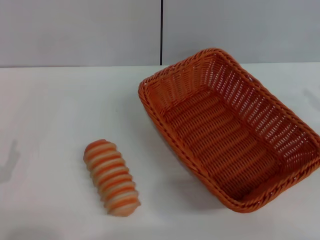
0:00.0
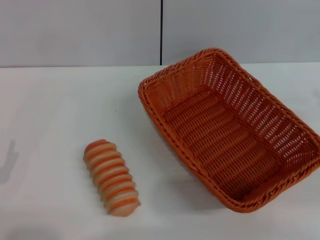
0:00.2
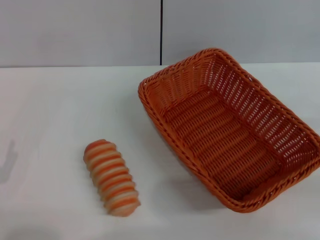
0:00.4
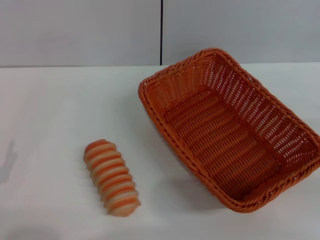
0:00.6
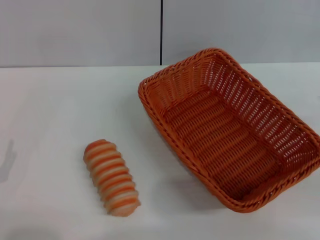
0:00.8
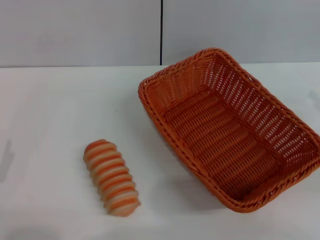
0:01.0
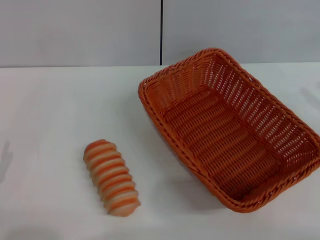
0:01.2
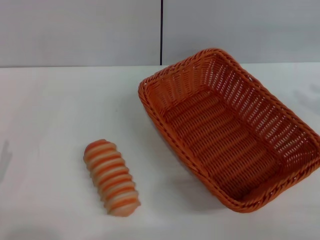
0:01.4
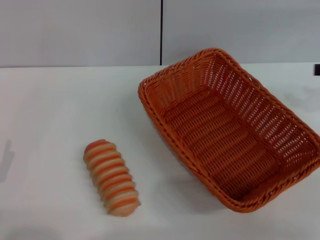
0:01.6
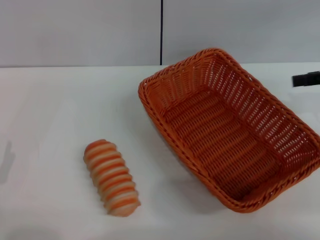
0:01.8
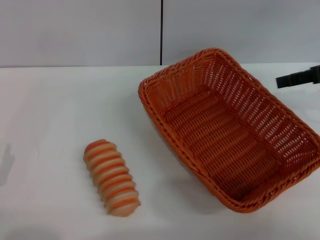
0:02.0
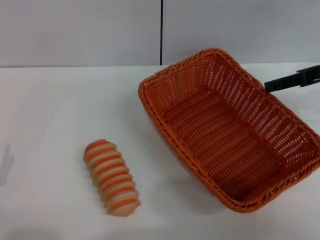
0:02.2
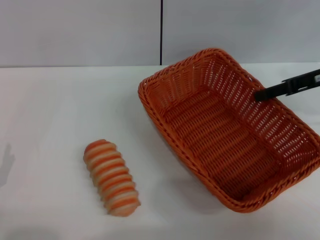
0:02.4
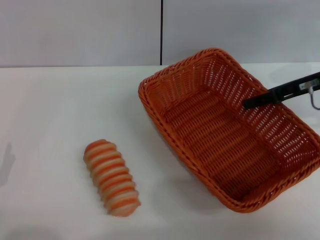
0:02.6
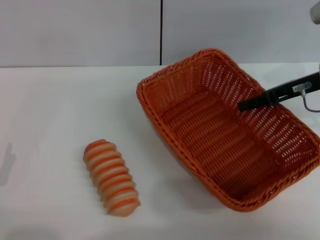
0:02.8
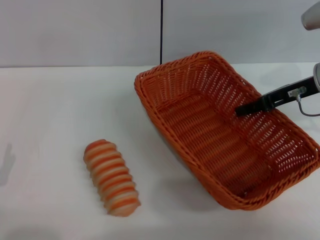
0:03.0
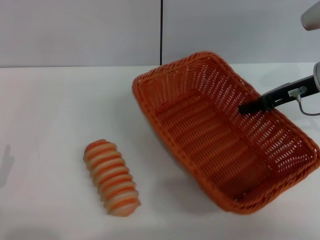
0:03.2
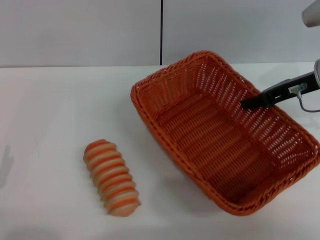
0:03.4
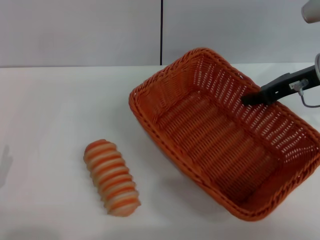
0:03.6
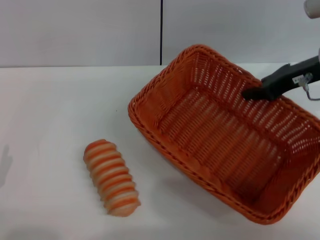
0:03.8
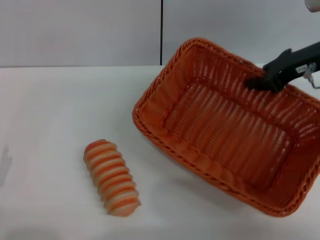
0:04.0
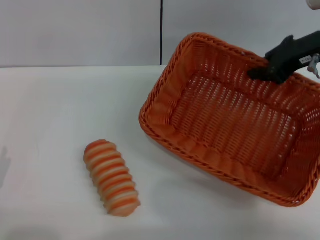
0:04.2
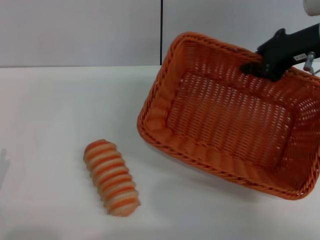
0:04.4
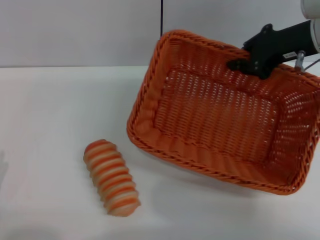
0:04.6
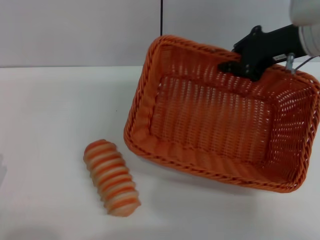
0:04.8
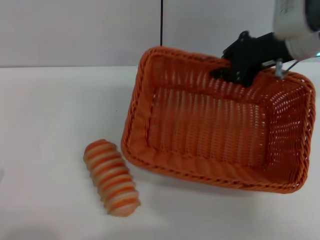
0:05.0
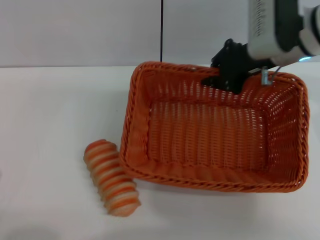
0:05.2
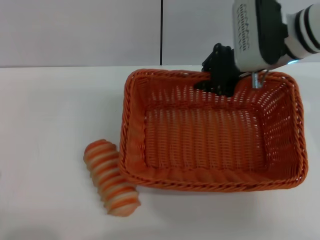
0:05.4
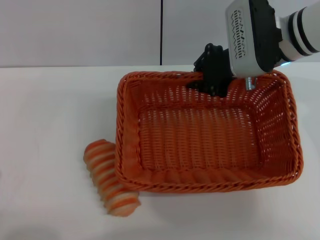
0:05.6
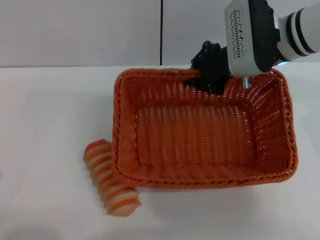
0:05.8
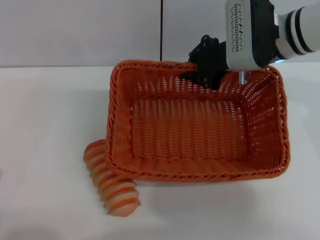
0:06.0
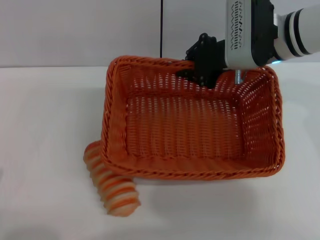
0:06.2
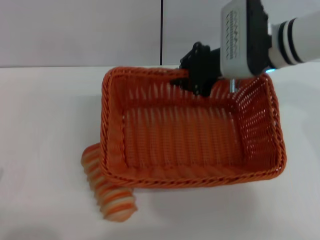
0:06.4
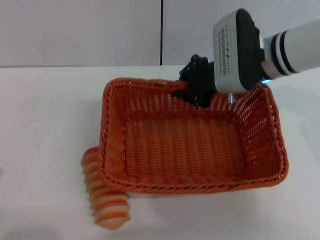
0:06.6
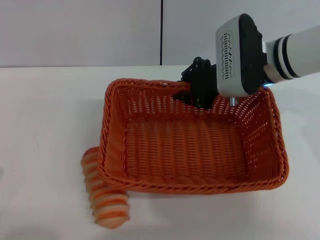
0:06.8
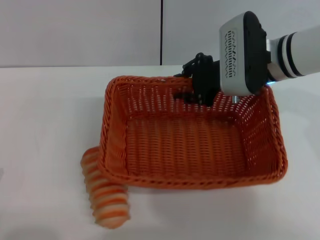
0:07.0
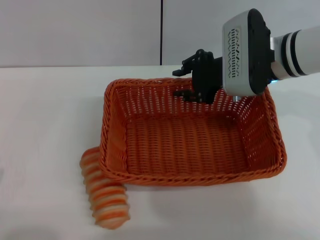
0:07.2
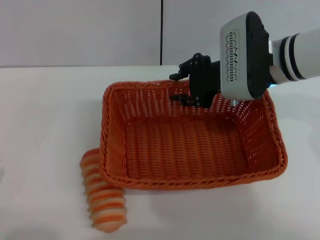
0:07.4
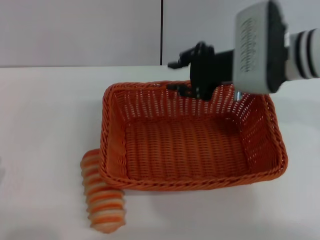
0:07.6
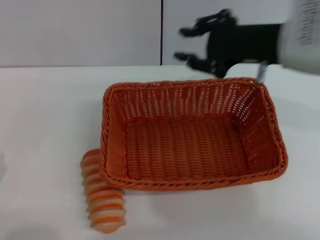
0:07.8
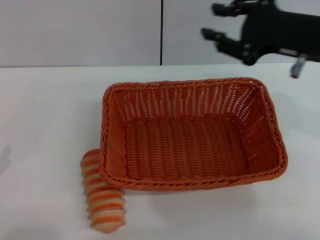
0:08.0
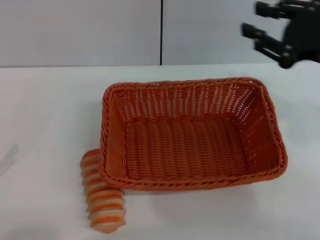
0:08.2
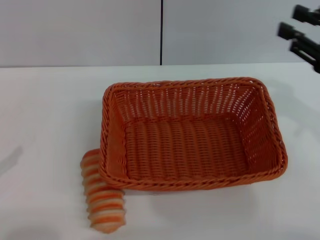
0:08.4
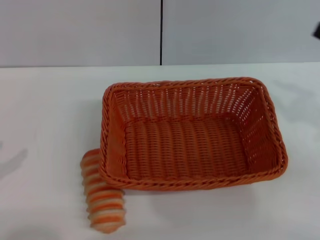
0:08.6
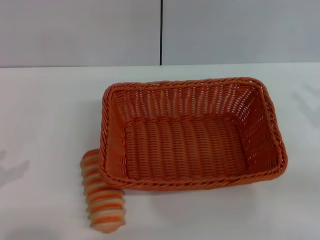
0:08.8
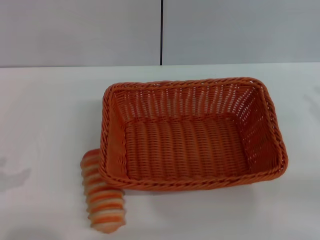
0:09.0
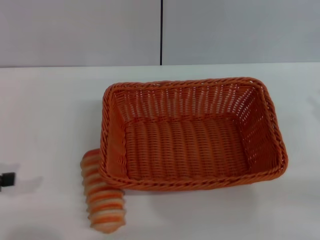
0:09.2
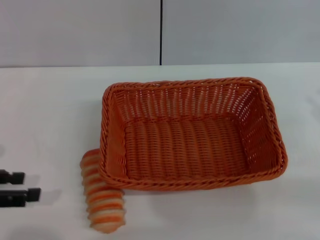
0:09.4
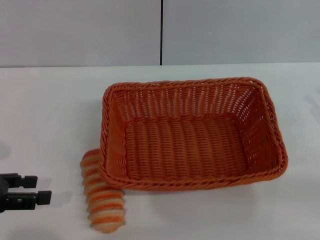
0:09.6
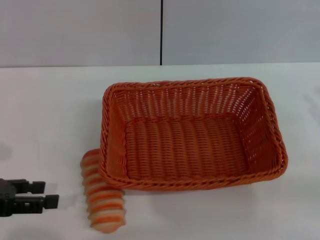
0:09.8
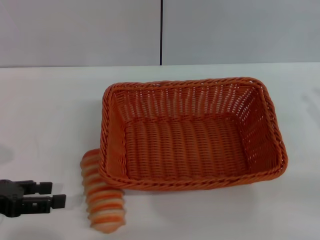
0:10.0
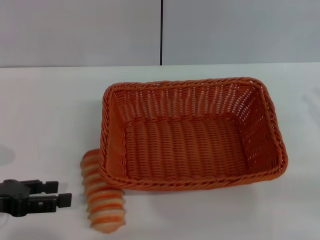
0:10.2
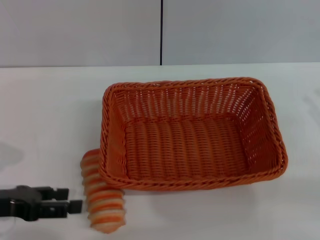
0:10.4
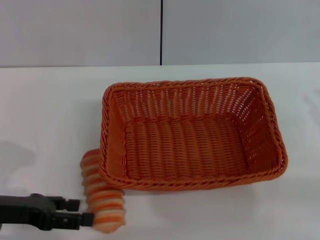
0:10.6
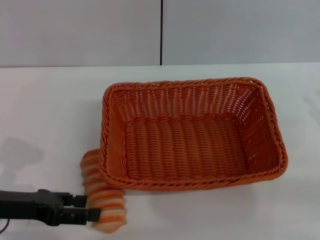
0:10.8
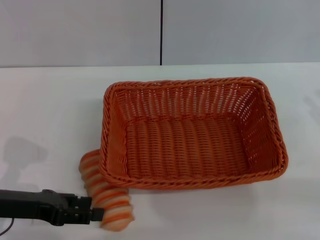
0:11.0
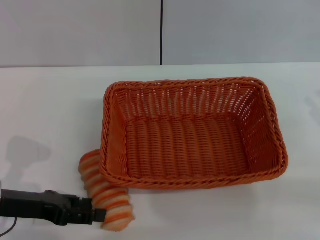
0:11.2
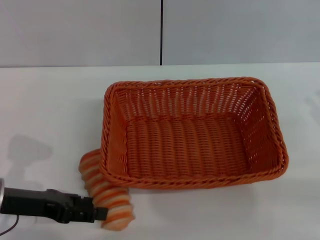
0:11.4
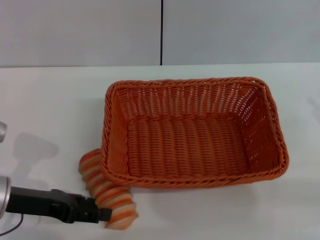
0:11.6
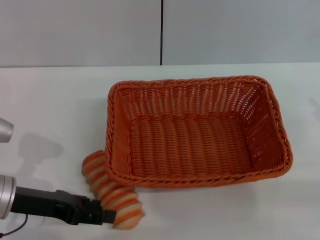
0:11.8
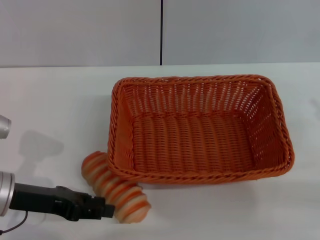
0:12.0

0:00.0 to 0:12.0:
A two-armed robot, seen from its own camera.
Step, 0:00.0 to 0:06.0: Pick up the light basket with the right gripper.
Step, 0:06.2 to 0:08.0: Place the light basket in the center of view with the right gripper.
0:01.6 to 0:03.0: The right gripper shifts roughly 15 cm to the left, forward and downward.
0:03.0 to 0:04.4: The right gripper is displaced upward by roughly 5 cm, and closes.
0:04.4 to 0:06.0: The right gripper is displaced to the left by about 10 cm.
0:06.0 to 0:07.6: The right gripper opens.
0:07.6 to 0:09.0: The right gripper moves to the right and backward, about 25 cm, while the left gripper goes roughly 20 cm upward, forward and to the left.
0:09.0 to 0:10.4: The left gripper moves to the right and downward, roughly 10 cm.
0:10.4 to 0:12.0: The left gripper travels to the right by approximately 5 cm.

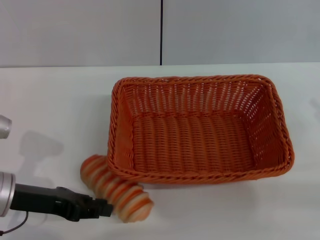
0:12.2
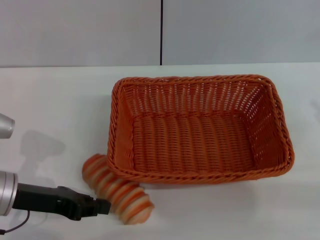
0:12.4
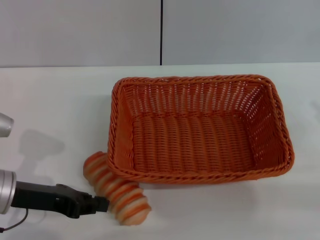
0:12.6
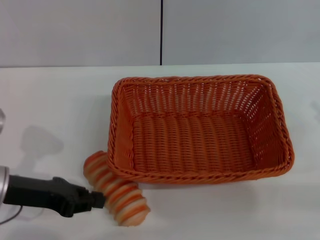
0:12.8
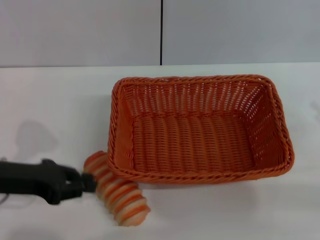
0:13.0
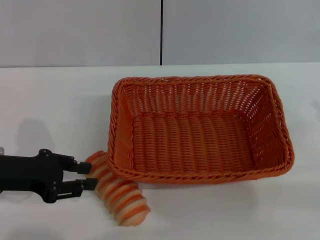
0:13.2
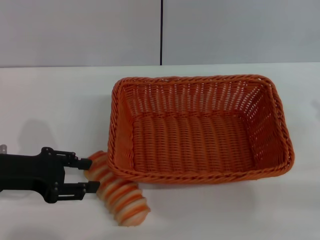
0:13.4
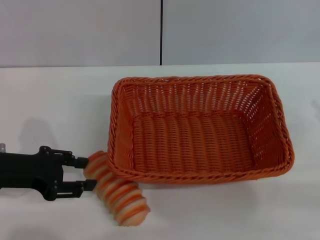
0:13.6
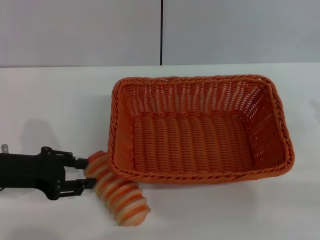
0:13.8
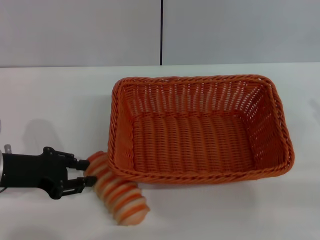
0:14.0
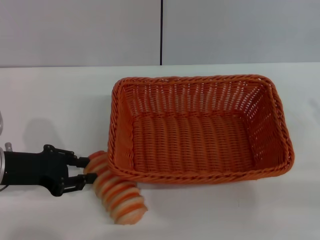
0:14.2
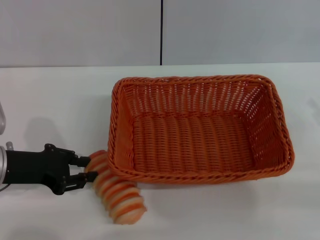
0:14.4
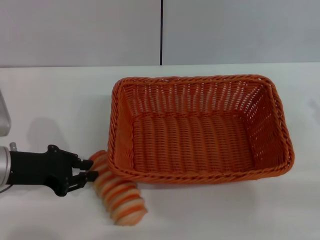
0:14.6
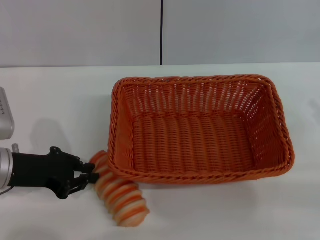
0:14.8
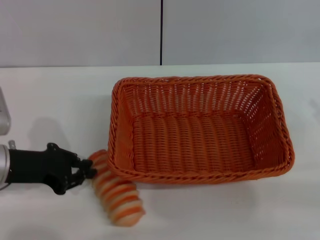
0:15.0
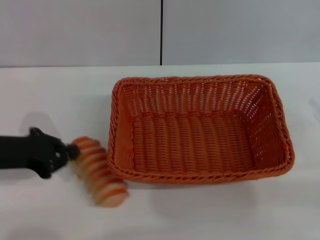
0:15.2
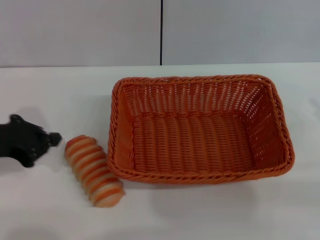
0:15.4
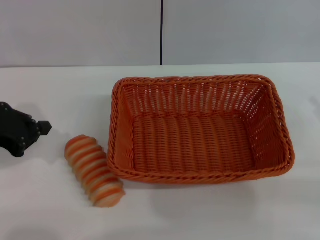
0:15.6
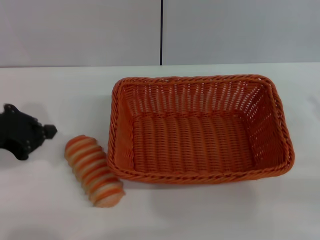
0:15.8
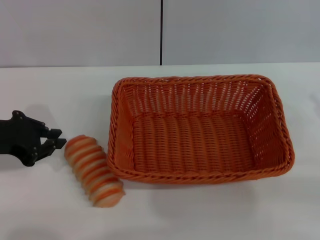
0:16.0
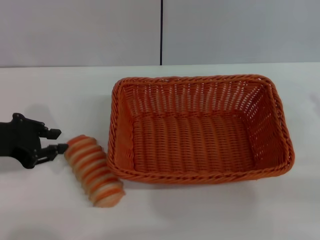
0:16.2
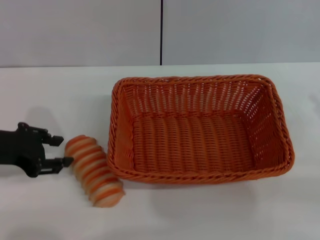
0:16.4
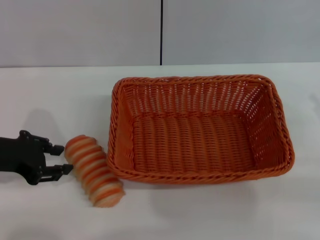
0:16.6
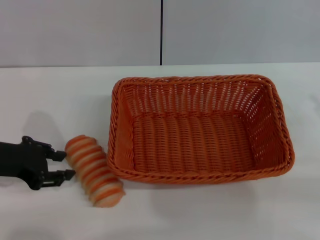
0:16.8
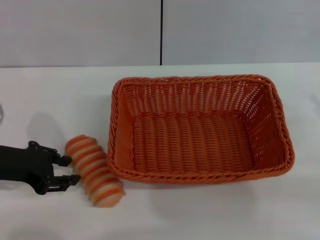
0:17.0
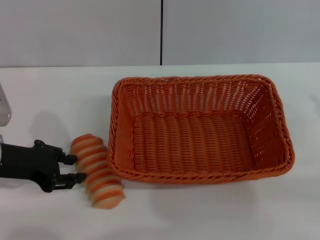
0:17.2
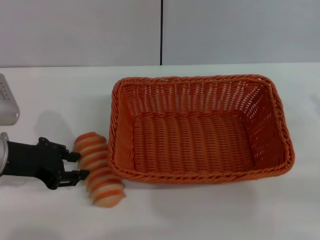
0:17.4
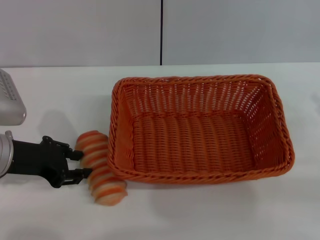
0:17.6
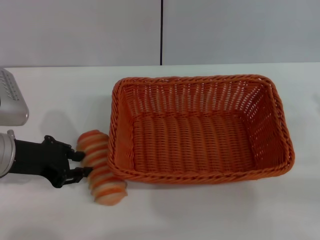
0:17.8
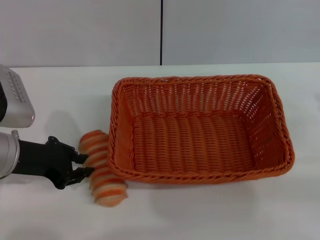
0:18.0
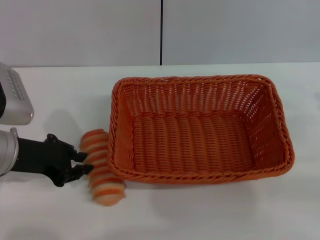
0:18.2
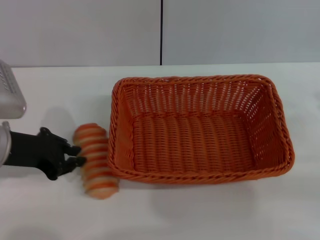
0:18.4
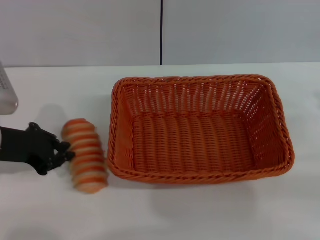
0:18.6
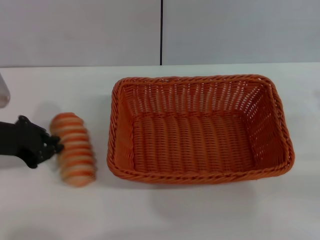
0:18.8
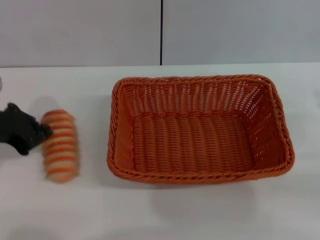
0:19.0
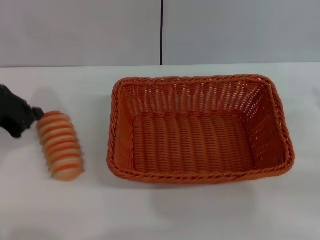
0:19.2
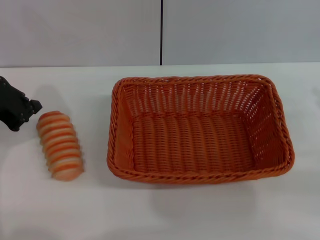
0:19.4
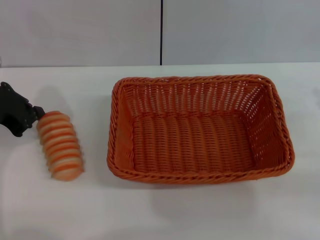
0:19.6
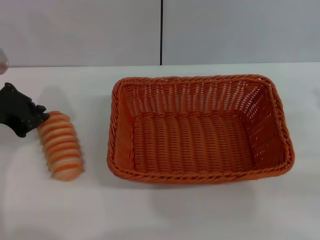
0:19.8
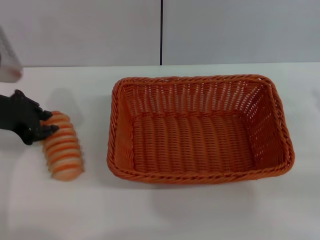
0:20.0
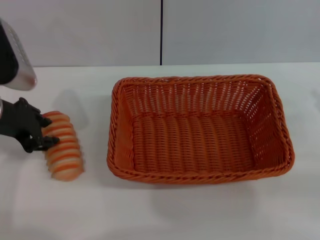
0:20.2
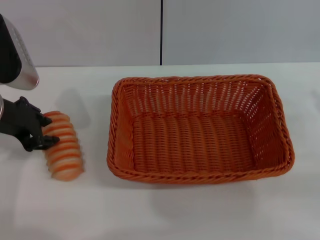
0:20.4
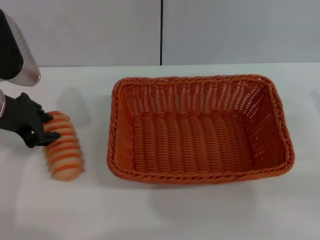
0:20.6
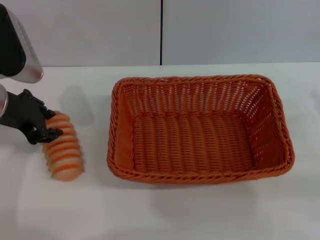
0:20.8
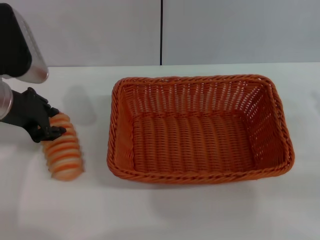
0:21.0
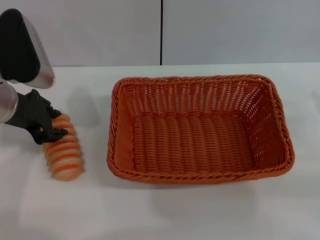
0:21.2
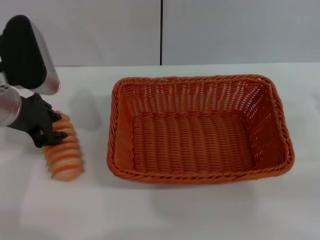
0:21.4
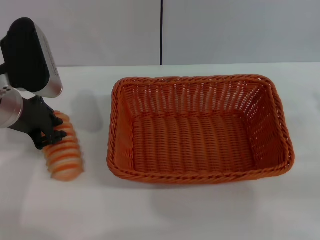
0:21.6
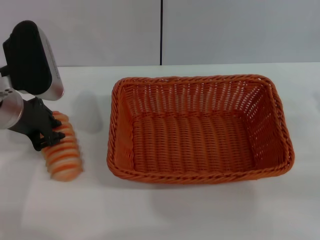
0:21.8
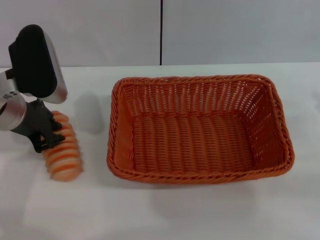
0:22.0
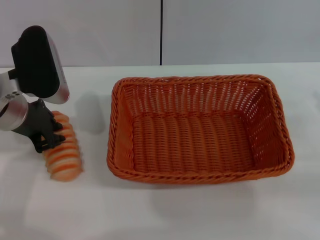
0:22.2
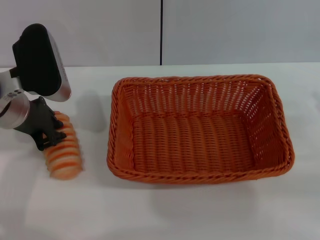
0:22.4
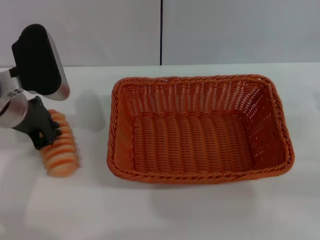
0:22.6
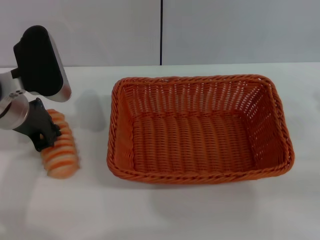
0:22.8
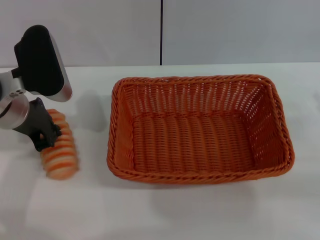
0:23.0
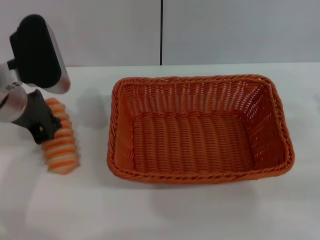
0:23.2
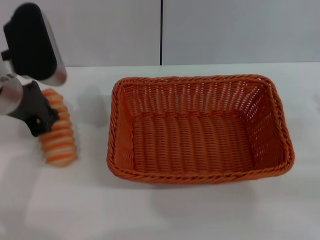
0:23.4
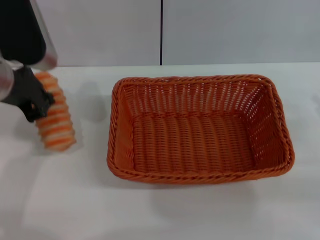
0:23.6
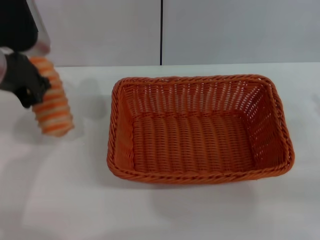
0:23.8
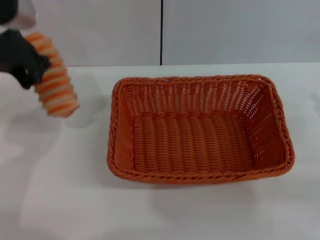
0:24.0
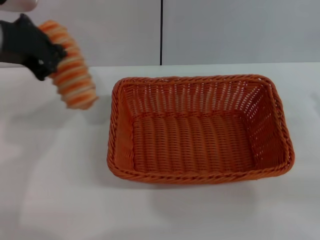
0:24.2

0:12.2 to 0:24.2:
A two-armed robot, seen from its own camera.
Step, 0:12.2 to 0:23.8: Pick up the long bread with the left gripper.
0:12.2 to 0:13.8: The left gripper closes, then reopens.
0:13.8 to 0:15.2: The left gripper closes up.
0:15.2 to 0:16.6: The left gripper opens.
0:16.6 to 0:18.2: The grippers move only a little.
0:18.2 to 0:19.8: The left gripper shifts approximately 5 cm upward, and closes up.
0:19.8 to 0:21.2: The left gripper opens up.
0:21.2 to 0:22.6: The grippers move only a little.
0:22.6 to 0:24.2: The left gripper goes roughly 10 cm upward.
